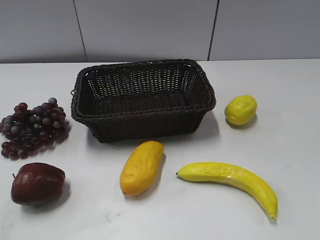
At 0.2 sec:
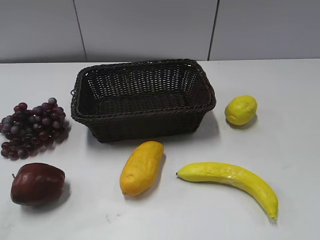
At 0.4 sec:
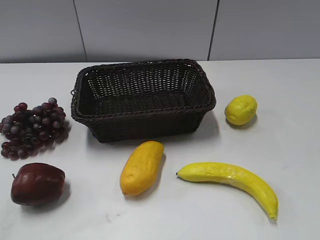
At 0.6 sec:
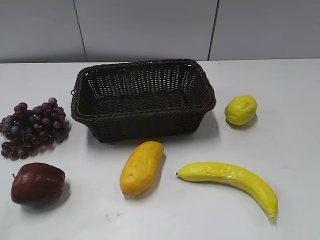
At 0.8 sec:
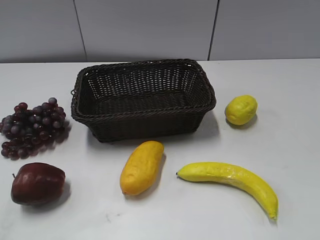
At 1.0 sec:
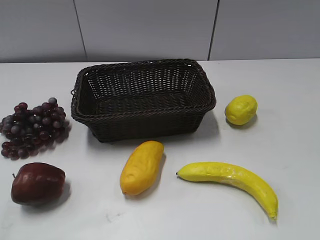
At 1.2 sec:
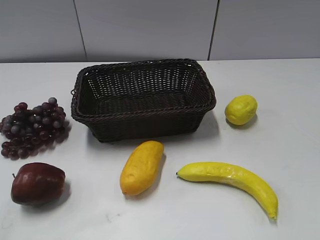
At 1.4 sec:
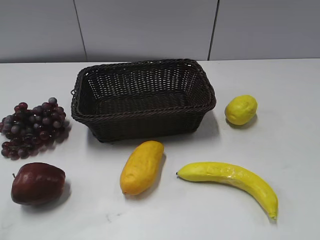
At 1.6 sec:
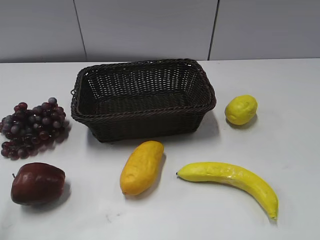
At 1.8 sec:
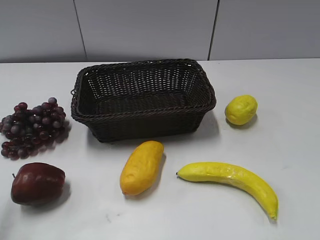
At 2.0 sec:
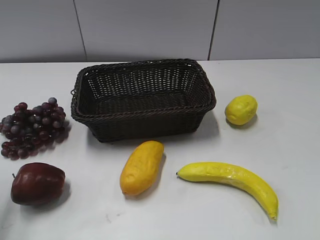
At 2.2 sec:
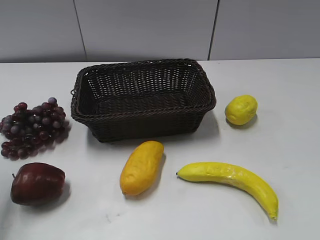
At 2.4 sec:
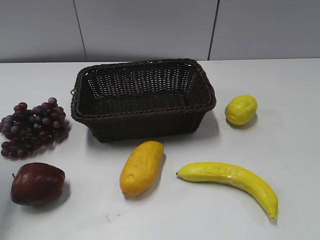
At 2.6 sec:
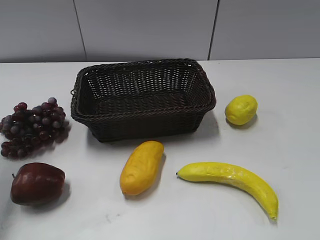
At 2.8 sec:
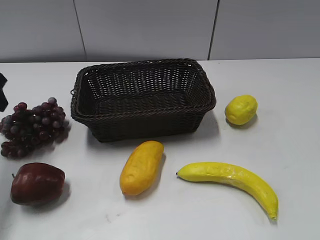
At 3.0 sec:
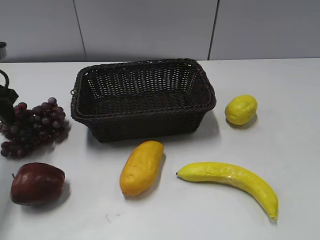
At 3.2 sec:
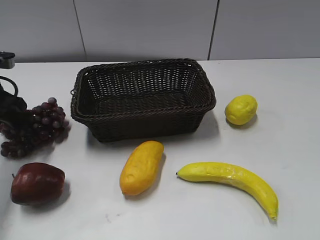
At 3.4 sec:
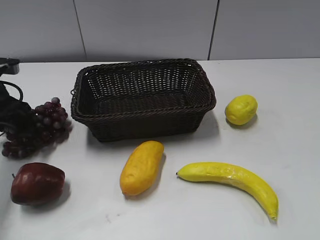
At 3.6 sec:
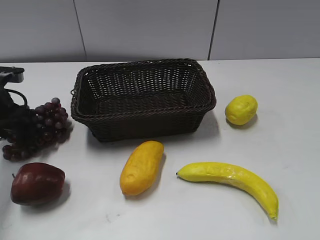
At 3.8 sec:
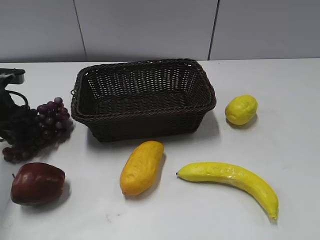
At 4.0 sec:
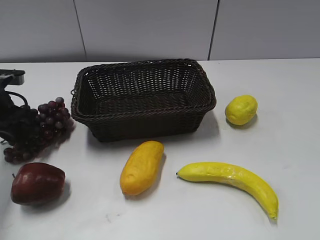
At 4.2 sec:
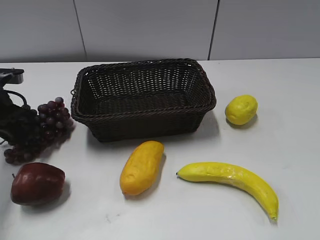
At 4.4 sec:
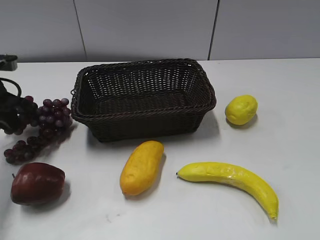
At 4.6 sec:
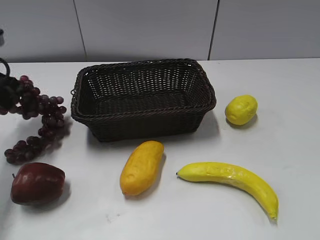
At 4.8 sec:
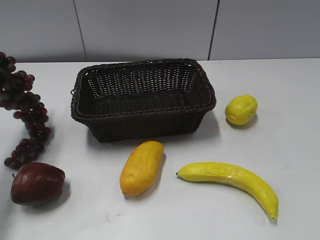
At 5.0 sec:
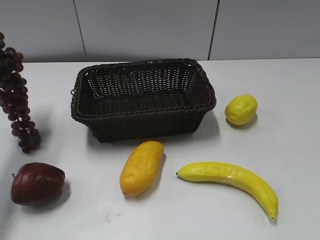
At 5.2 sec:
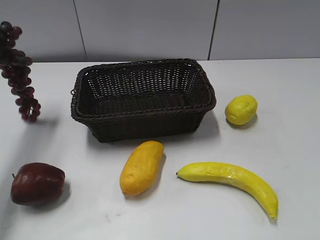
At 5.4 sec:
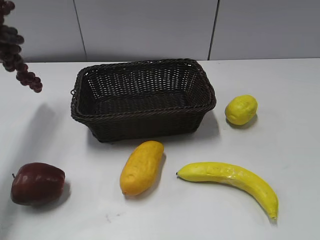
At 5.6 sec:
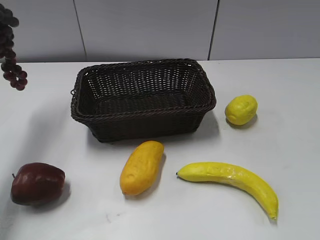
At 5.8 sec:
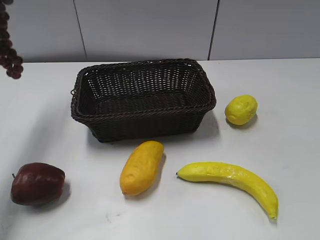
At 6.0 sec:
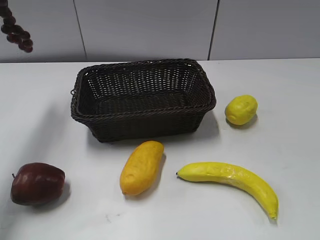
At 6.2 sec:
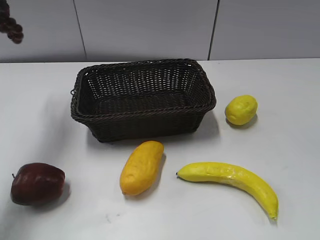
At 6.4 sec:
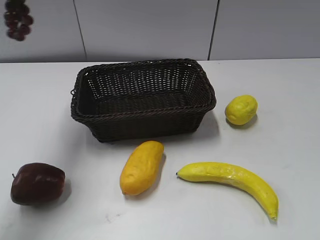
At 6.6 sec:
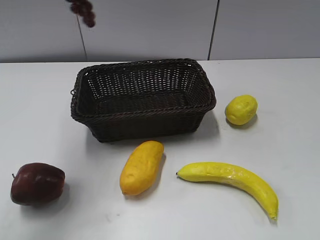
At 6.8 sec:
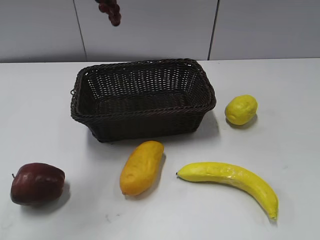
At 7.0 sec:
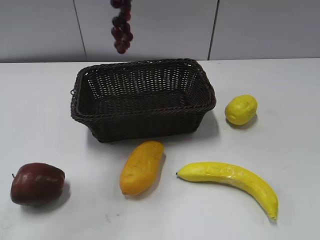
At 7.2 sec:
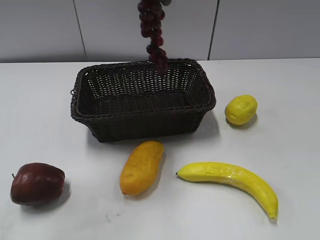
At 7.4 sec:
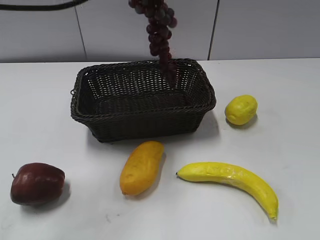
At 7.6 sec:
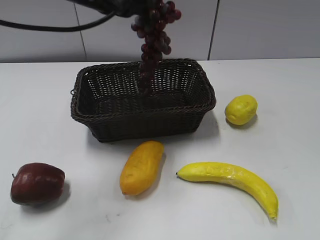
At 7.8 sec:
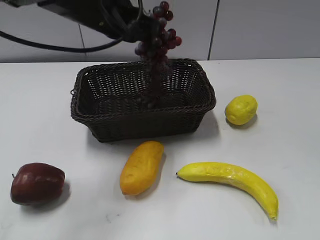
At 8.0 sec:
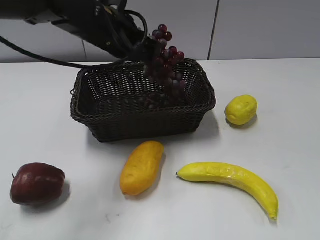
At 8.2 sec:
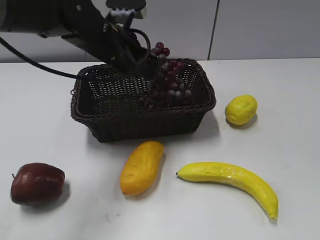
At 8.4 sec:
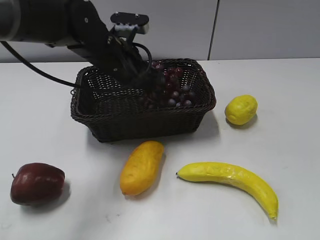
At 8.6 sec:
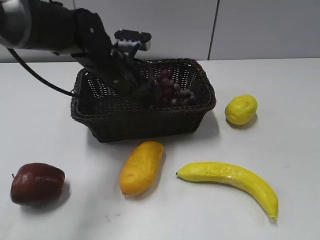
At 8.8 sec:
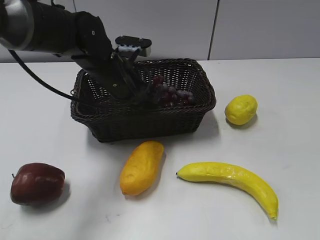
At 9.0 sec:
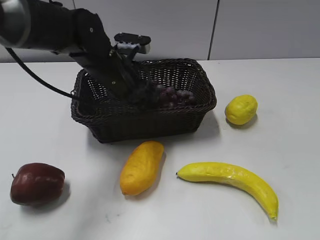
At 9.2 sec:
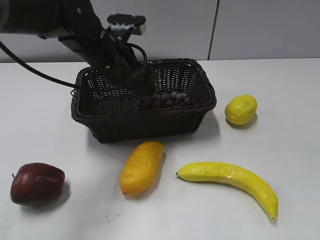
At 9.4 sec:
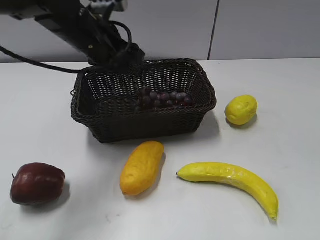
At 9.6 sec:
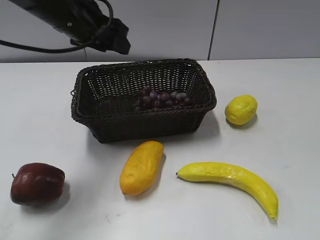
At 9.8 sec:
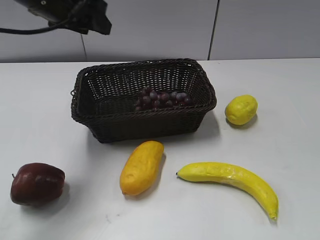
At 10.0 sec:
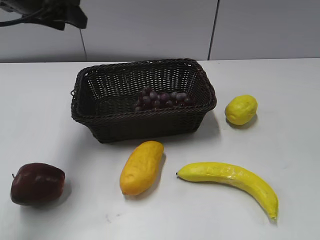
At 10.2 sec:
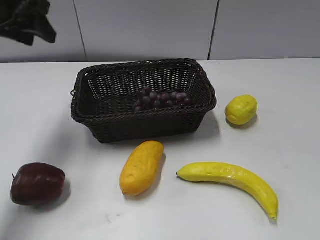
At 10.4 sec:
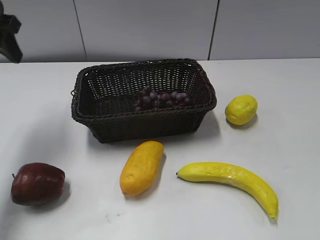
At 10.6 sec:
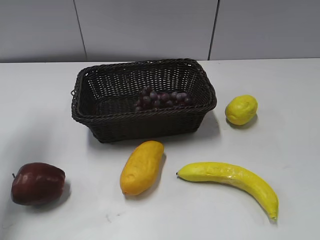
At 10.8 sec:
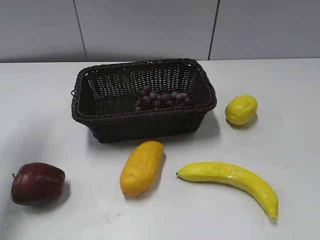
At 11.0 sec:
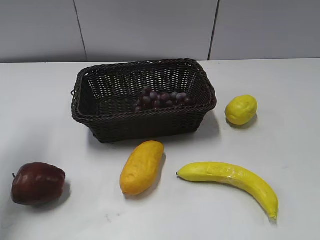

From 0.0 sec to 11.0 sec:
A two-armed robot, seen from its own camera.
Step, from 2.8 sec to 4.6 sec: Grasp the grape with left gripper.
Step, from 4.8 sec to 9.2 sec: Place the grape in the basket with left gripper.
From 1.6 sec to 3.2 sec: The left gripper is displaced forward and downward by approximately 30 cm.
From 3.2 sec to 4.8 sec: The left gripper heads upward, covering roughly 10 cm, and closes up.
From 4.8 sec to 6.2 sec: The left gripper is displaced upward by some 15 cm.
From 6.2 sec to 7.8 sec: The left gripper goes roughly 25 cm to the right and downward.
From 7.8 sec to 9.4 sec: The left gripper moves approximately 10 cm downward and comes back, and opens its fingers.
From 9.4 sec to 11.0 sec: The left gripper travels to the left by approximately 20 cm.

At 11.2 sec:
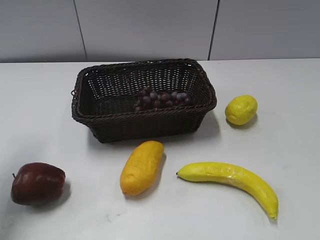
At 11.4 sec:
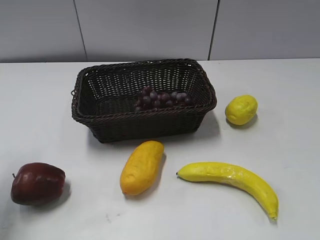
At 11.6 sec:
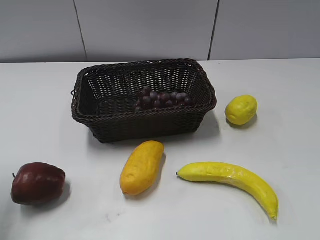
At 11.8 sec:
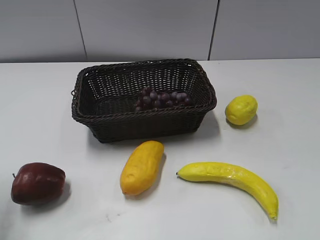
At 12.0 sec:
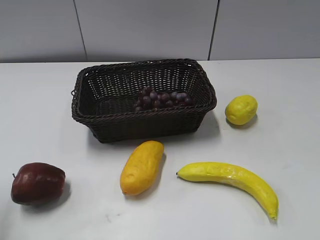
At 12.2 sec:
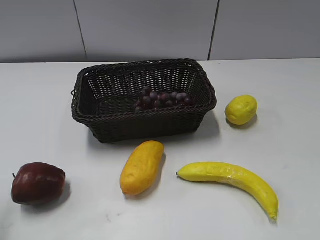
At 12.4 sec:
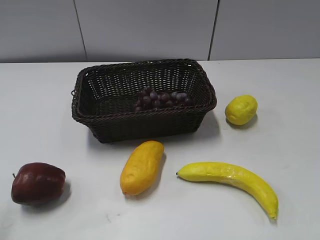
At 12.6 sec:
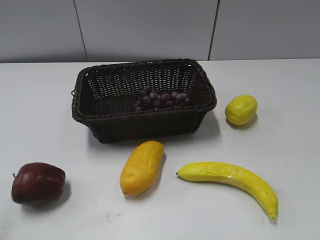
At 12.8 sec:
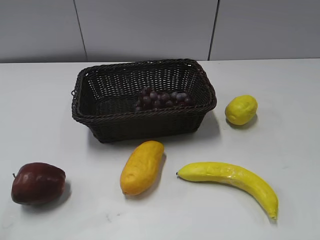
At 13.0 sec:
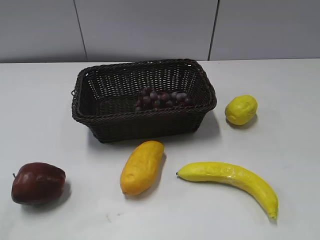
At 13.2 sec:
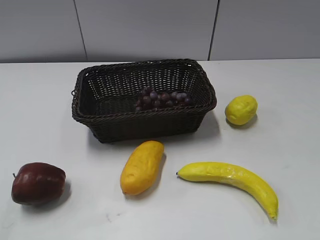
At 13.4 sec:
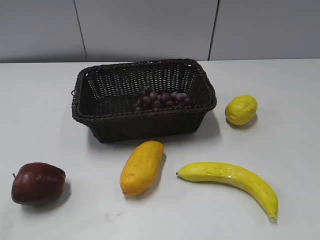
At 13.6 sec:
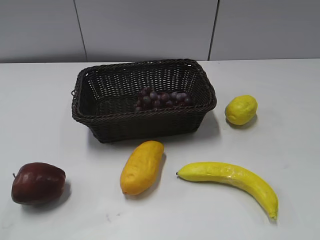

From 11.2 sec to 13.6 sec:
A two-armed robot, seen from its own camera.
From 11.2 sec to 12.4 sec: The left gripper heads backward, covering approximately 15 cm.

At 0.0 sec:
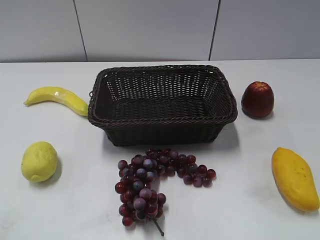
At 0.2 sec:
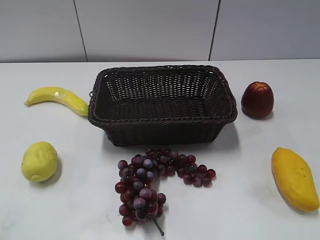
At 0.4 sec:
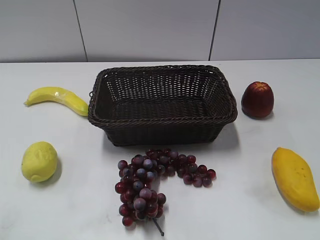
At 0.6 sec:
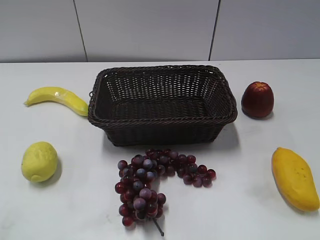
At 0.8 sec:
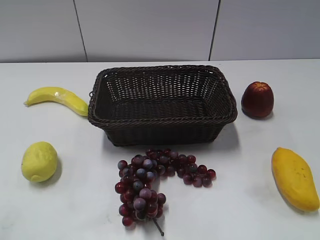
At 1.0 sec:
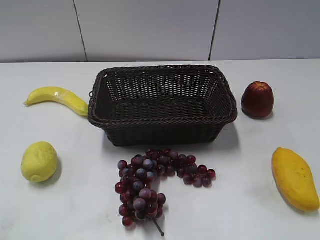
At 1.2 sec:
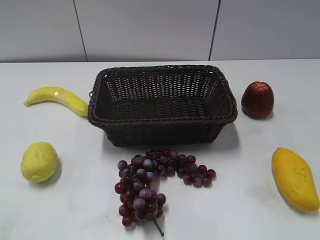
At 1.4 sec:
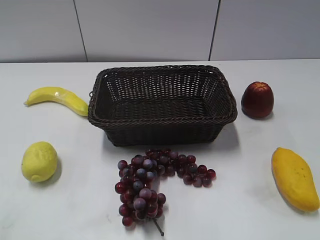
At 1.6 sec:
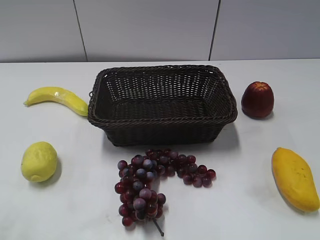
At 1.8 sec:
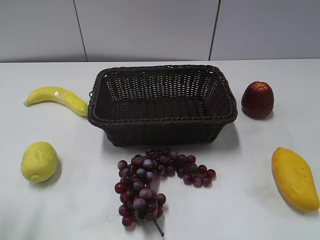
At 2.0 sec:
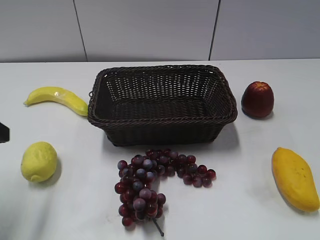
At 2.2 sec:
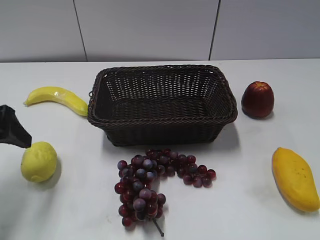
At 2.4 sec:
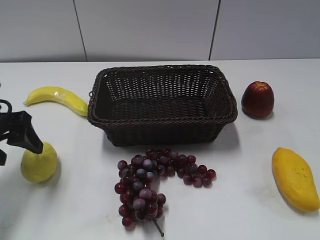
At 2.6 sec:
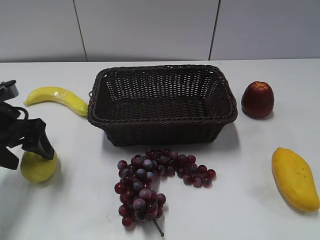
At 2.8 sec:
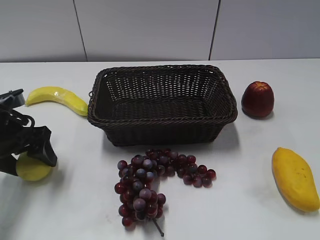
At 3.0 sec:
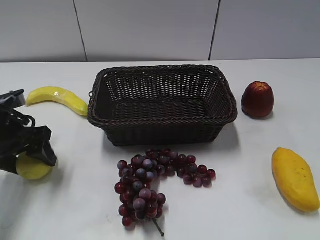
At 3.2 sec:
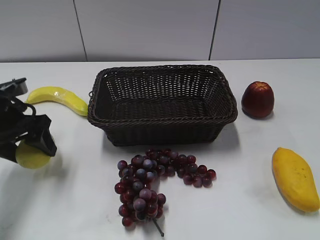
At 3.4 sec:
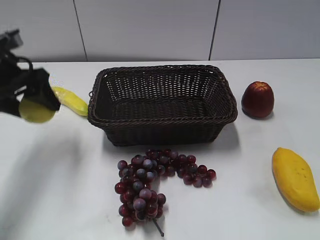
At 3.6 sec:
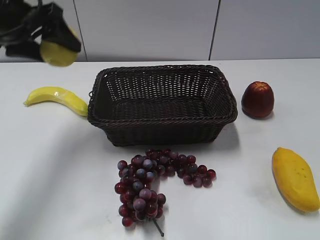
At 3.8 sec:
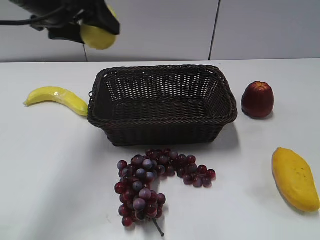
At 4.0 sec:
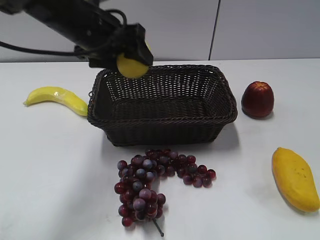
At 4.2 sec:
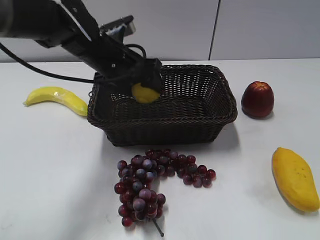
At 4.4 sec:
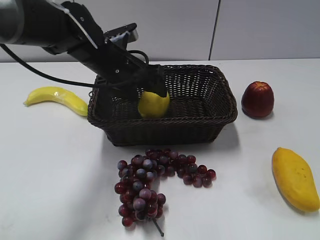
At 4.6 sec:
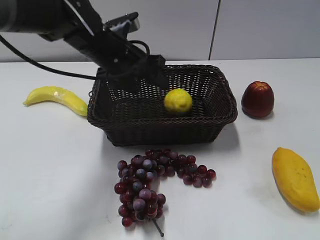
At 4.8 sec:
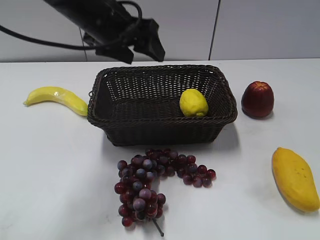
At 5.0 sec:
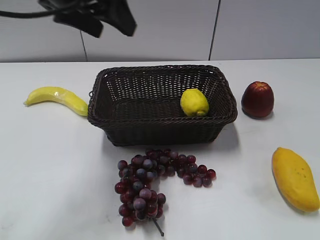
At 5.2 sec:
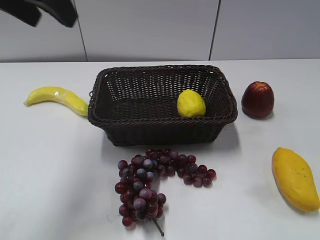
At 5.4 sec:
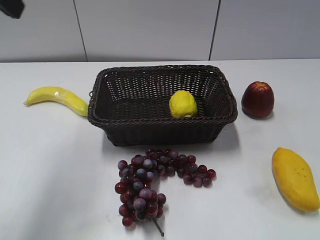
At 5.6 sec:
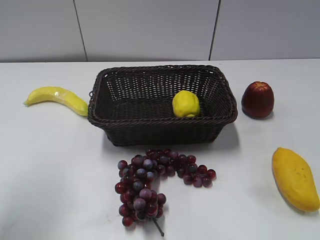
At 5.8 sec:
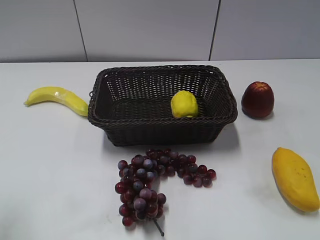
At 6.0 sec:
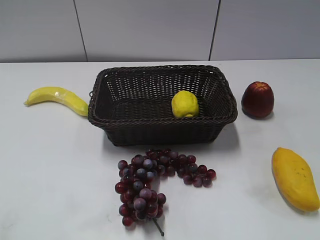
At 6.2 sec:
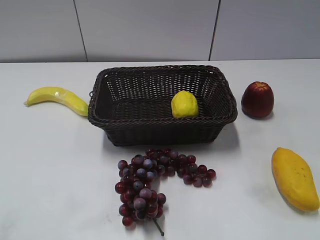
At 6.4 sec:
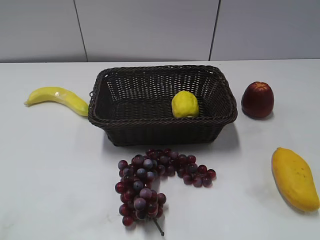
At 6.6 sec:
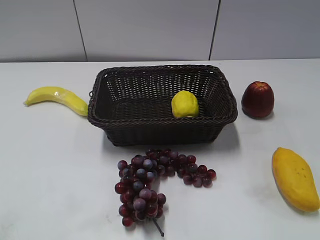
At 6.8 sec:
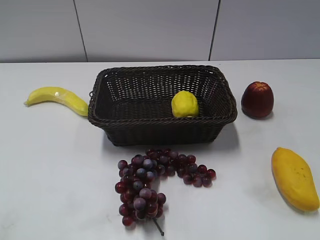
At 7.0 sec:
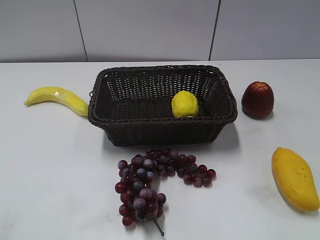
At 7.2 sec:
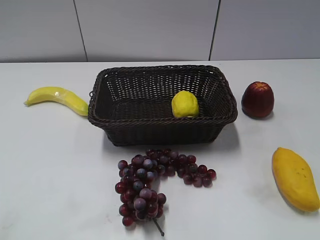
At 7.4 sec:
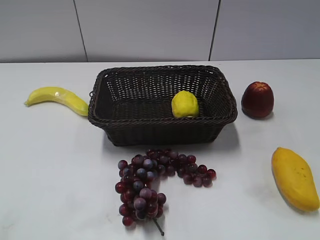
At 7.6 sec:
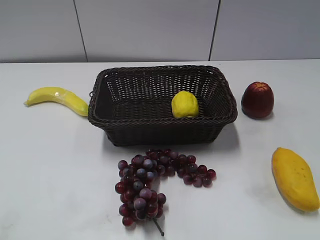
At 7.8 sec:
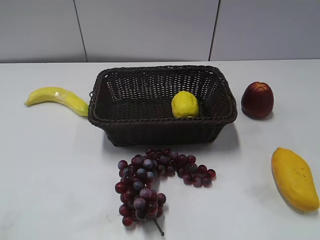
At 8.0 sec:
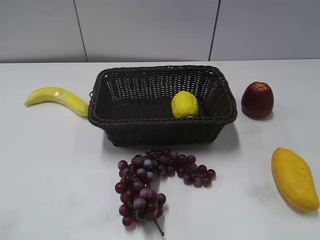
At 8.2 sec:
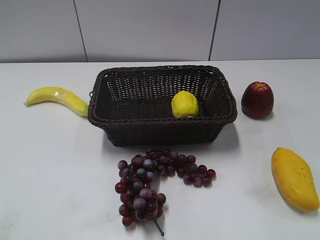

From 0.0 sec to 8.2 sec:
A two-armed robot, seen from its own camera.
Step, from 2.0 sec to 2.8 sec: Grasp the lemon with left gripper.
Step, from 3.0 sec to 4.6 sec: Place the lemon in the basket with left gripper.
From 1.6 sec to 3.2 sec: The left gripper travels forward and downward by about 25 cm.
From 3.2 sec to 5.0 sec: The left gripper moves up and down over roughly 20 cm, changing direction 2 times.
From 5.0 sec to 6.6 sec: The left gripper travels backward and to the left by roughly 35 cm.
